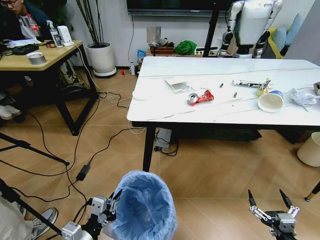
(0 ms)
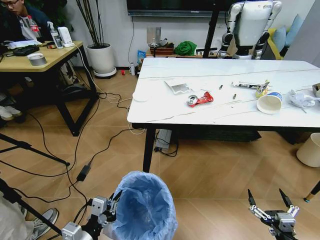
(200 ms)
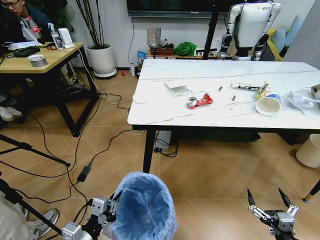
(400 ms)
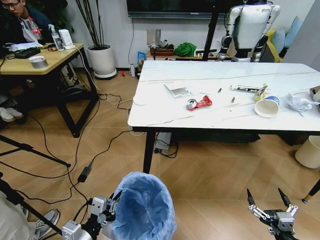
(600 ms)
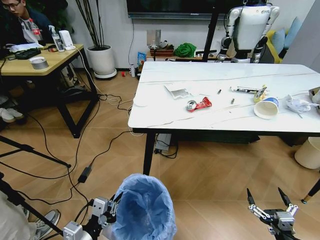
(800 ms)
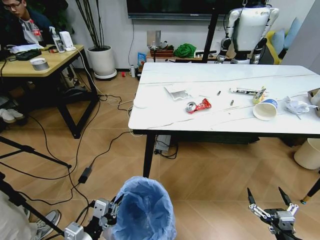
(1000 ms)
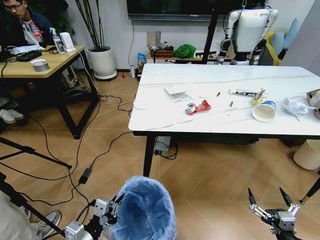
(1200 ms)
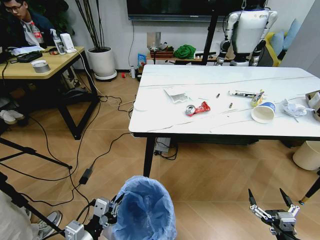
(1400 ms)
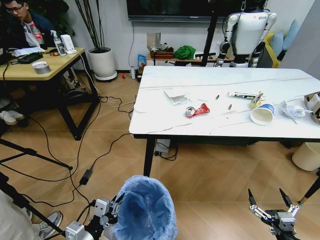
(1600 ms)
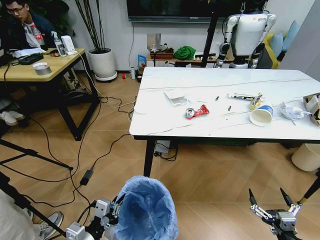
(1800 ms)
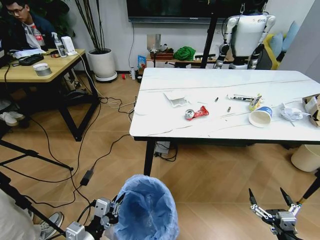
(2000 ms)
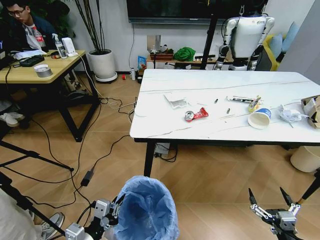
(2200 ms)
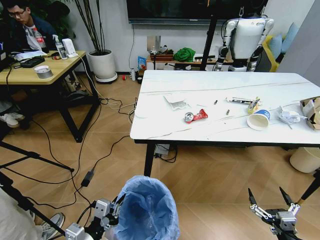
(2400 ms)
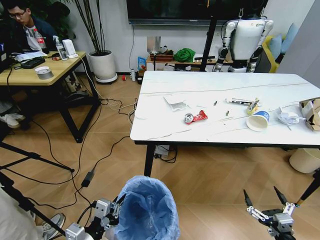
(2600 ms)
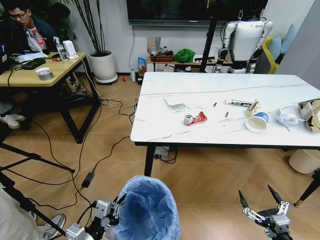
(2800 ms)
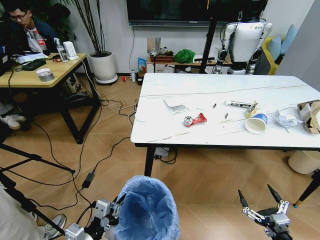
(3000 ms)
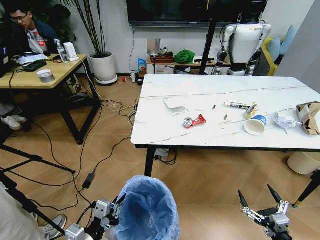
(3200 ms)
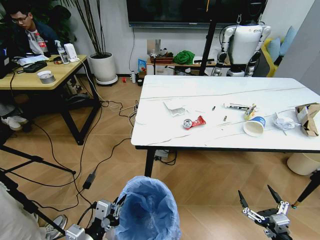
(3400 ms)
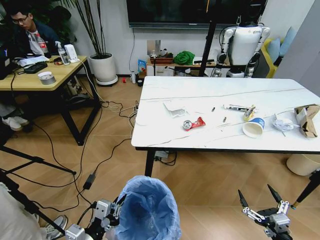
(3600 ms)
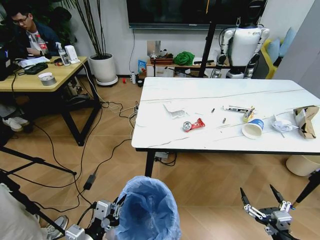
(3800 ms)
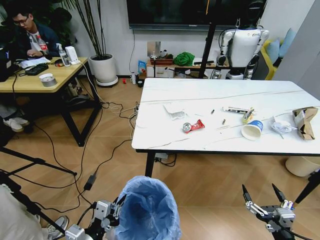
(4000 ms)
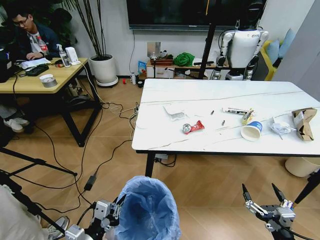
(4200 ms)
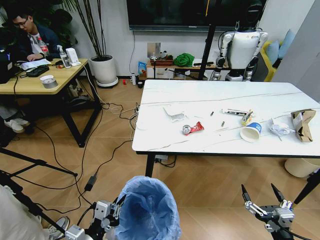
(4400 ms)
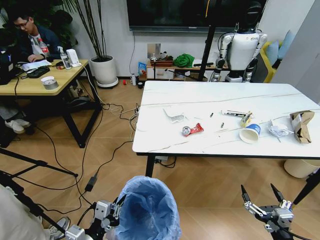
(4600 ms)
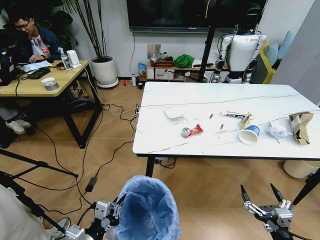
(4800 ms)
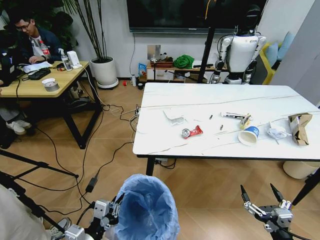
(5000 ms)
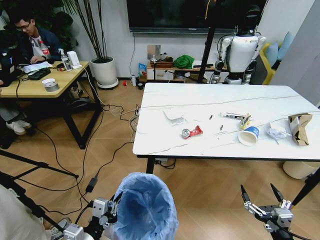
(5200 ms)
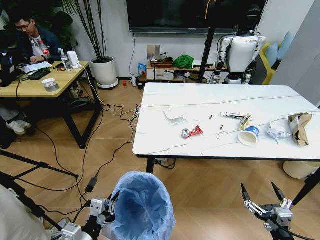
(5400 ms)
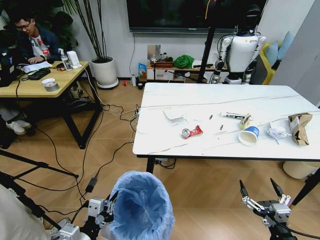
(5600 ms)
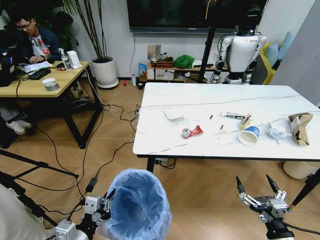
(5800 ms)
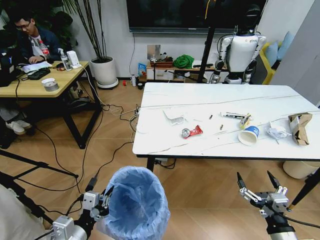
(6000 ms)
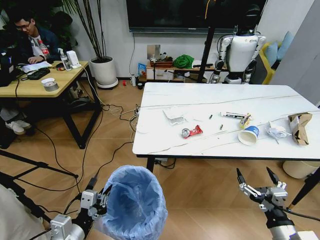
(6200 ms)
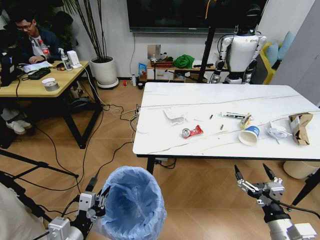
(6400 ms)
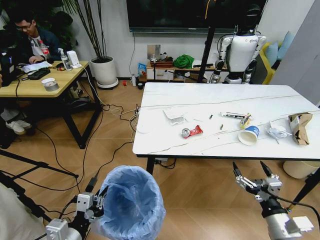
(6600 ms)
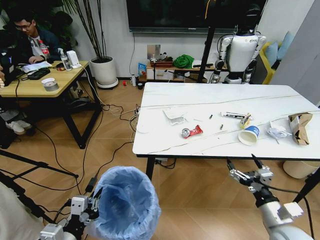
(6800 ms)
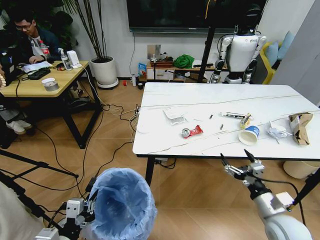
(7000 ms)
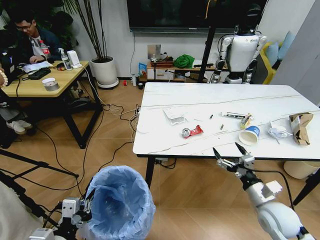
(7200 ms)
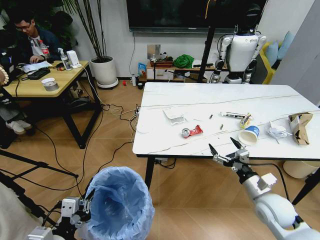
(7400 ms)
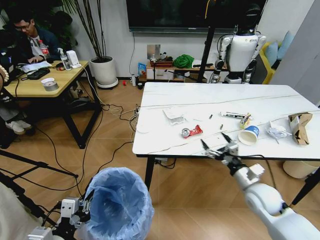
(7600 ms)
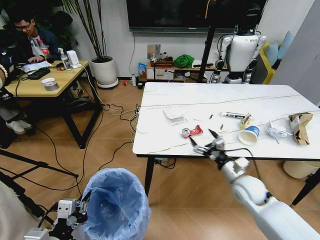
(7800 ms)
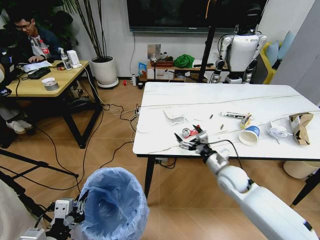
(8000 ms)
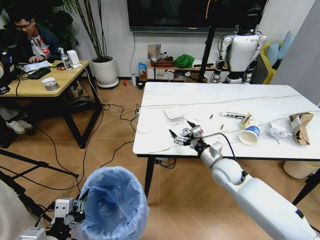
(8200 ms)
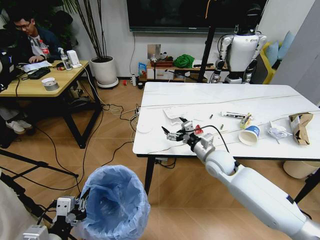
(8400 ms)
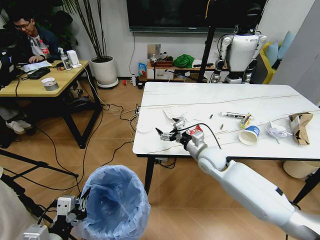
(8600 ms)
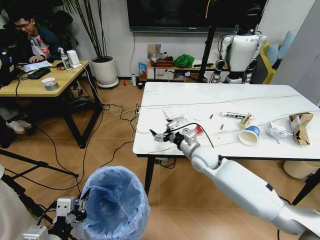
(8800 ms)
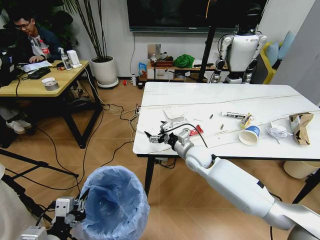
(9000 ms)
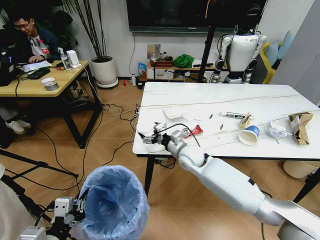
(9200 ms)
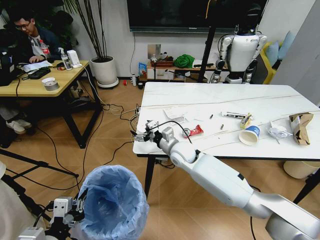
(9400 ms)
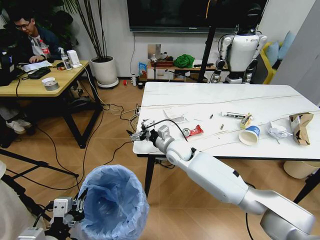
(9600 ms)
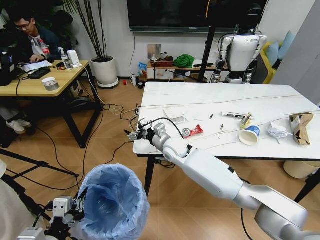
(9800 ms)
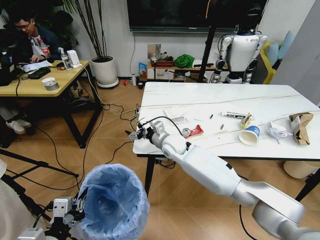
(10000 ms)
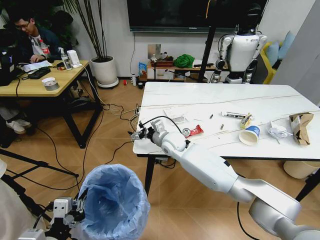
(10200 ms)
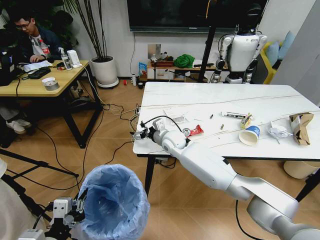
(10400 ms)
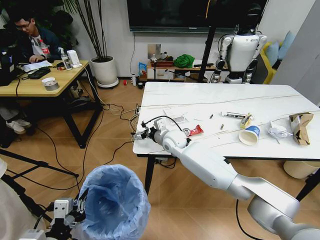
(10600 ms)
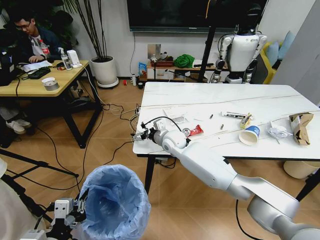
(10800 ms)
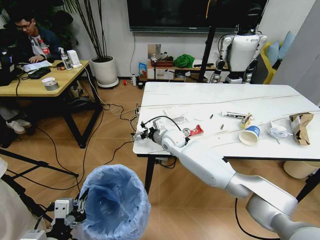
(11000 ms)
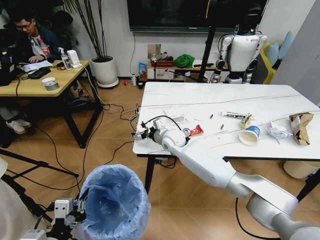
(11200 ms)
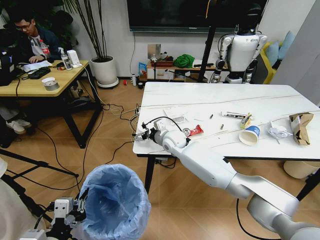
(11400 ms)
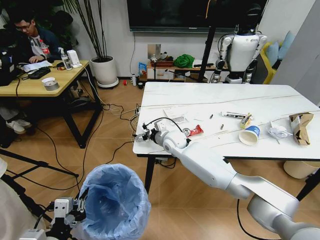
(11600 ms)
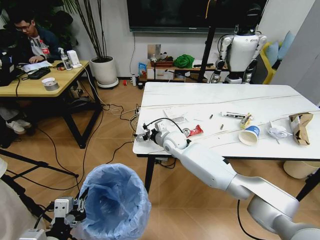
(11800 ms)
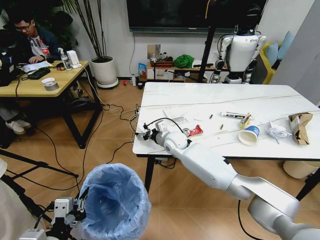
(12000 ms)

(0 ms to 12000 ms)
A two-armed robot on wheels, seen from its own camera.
Task of the whole recording: Pick up the trash bin and place the trash from the table into it.
6000 ms - 7600 ms: The right gripper is displaced forward by about 20 cm.
7600 ms - 9000 ms: The right gripper moves to the left and forward, about 25 cm.
9000 ms - 10400 ms: The right gripper travels to the left and forward by some 10 cm.
10400 ms - 12000 ms: The grippers stay close to where they were, moving slightly.

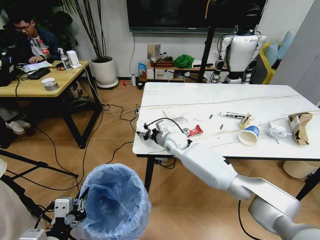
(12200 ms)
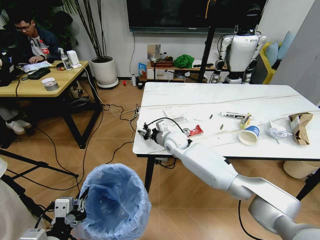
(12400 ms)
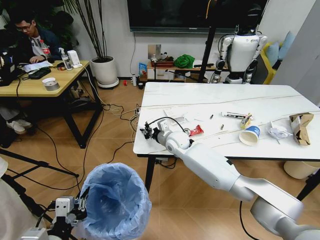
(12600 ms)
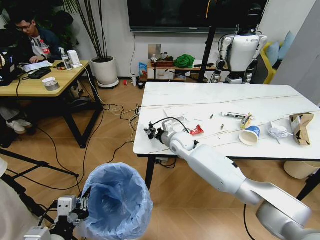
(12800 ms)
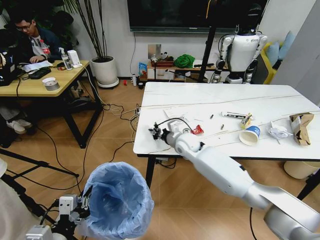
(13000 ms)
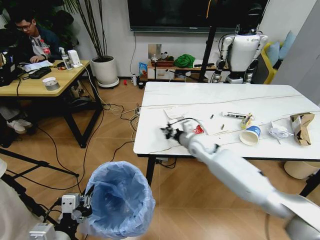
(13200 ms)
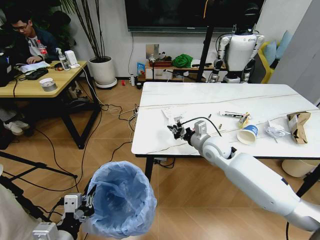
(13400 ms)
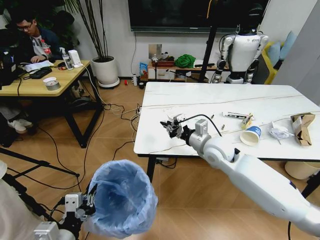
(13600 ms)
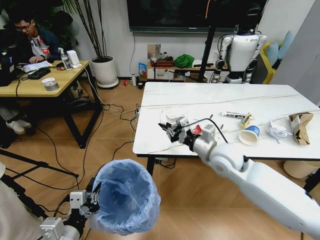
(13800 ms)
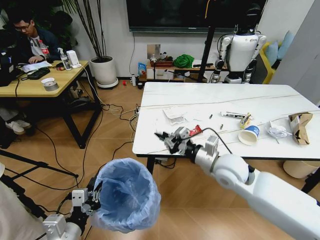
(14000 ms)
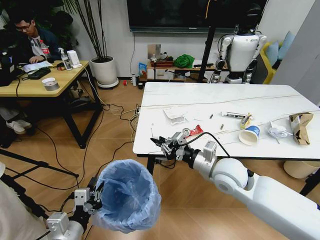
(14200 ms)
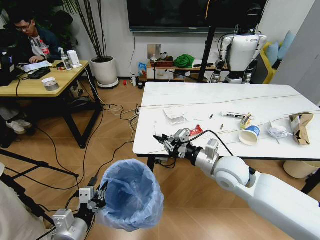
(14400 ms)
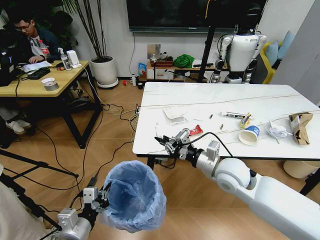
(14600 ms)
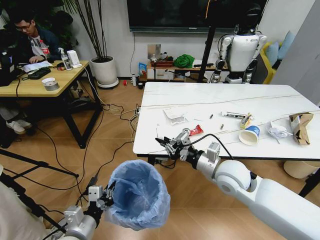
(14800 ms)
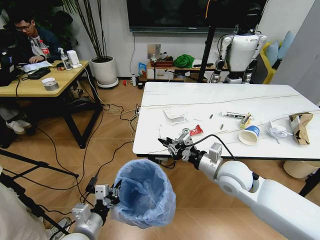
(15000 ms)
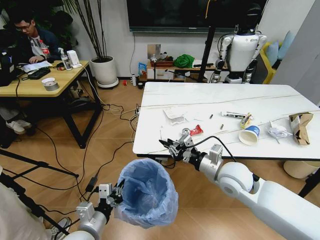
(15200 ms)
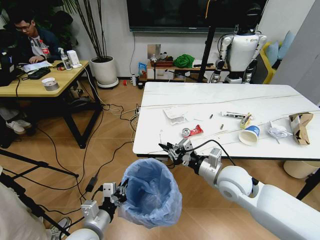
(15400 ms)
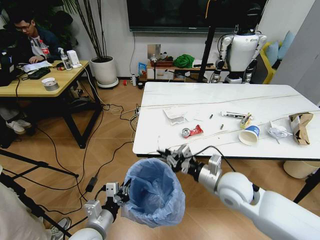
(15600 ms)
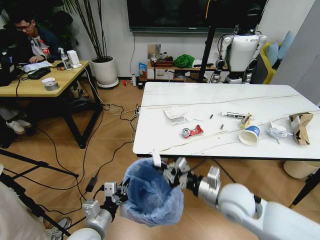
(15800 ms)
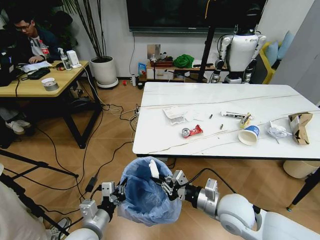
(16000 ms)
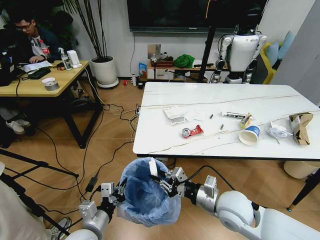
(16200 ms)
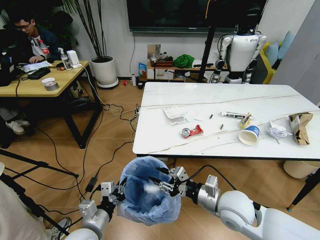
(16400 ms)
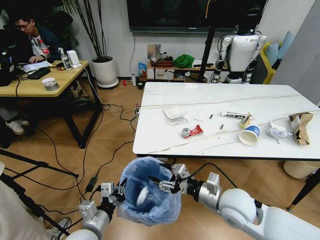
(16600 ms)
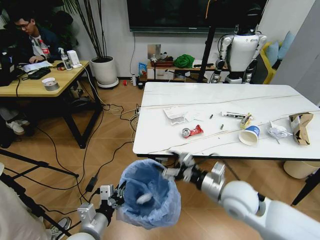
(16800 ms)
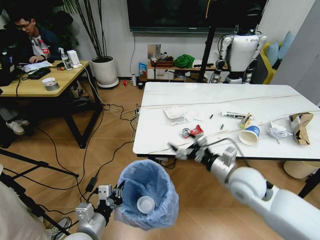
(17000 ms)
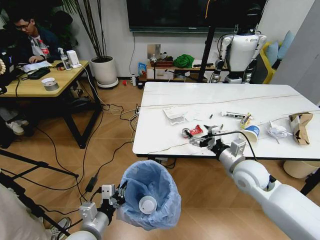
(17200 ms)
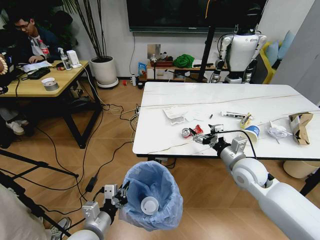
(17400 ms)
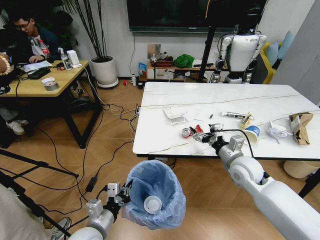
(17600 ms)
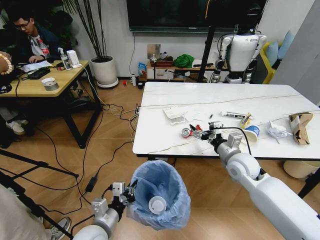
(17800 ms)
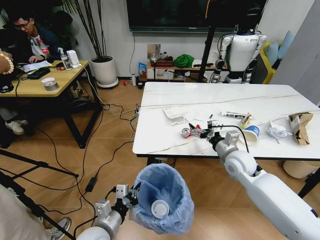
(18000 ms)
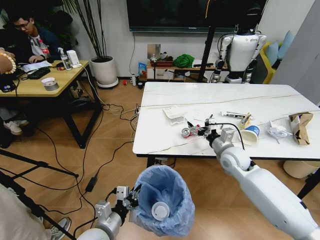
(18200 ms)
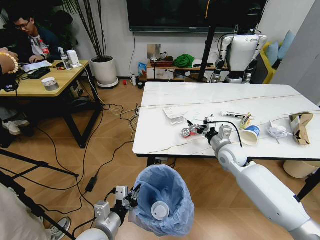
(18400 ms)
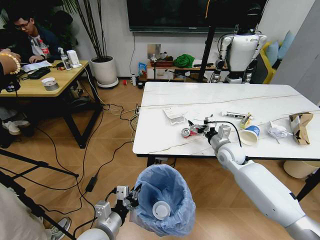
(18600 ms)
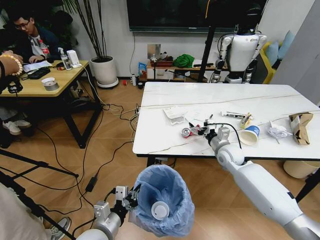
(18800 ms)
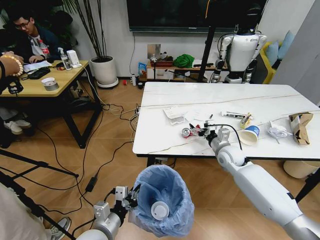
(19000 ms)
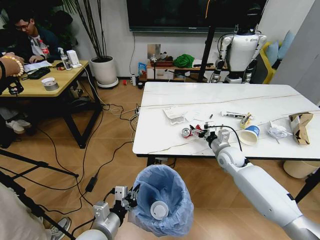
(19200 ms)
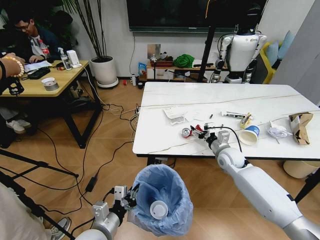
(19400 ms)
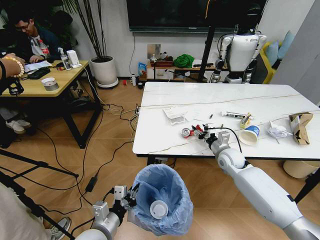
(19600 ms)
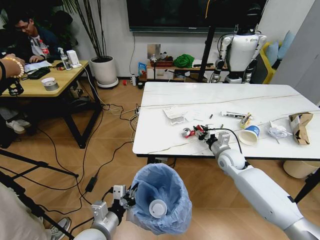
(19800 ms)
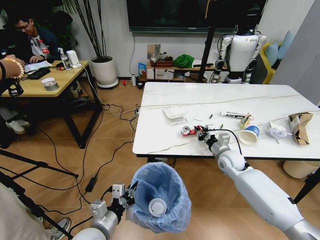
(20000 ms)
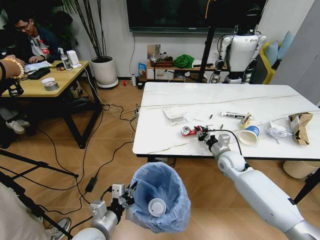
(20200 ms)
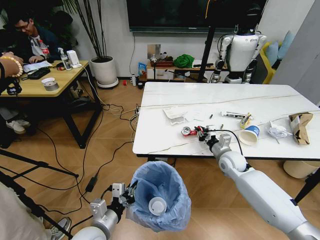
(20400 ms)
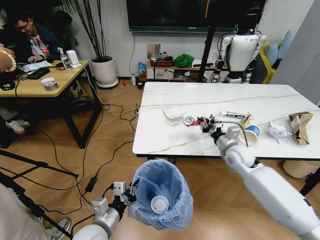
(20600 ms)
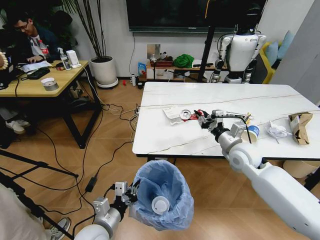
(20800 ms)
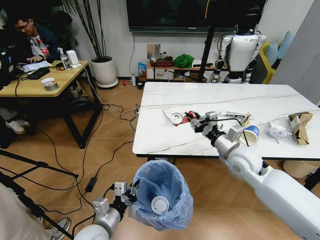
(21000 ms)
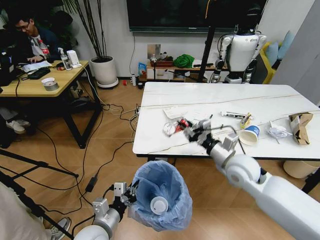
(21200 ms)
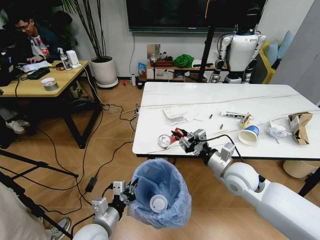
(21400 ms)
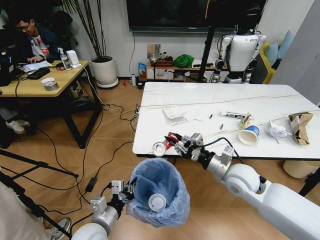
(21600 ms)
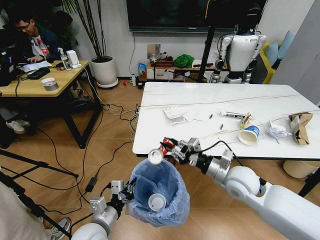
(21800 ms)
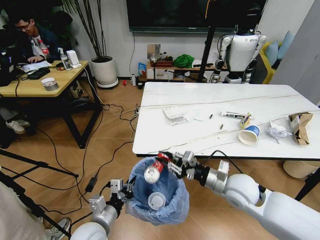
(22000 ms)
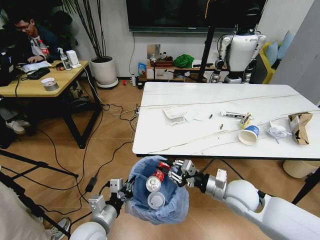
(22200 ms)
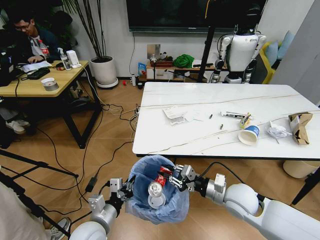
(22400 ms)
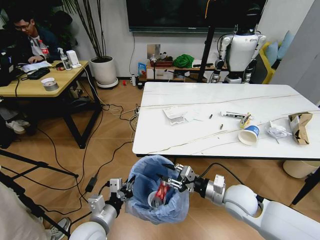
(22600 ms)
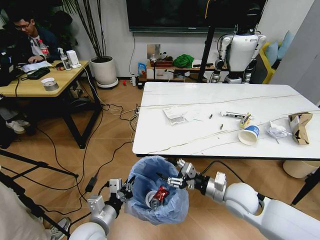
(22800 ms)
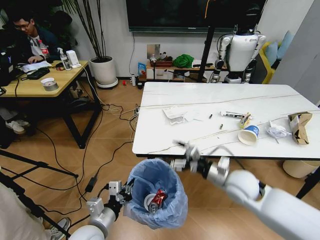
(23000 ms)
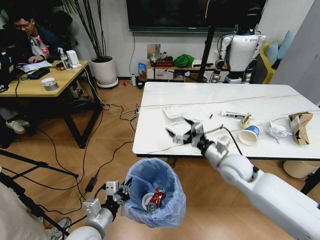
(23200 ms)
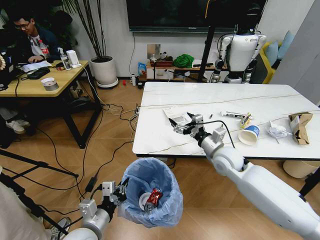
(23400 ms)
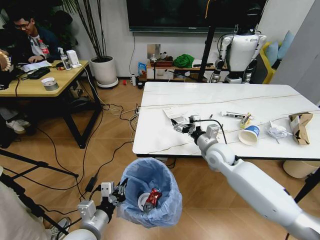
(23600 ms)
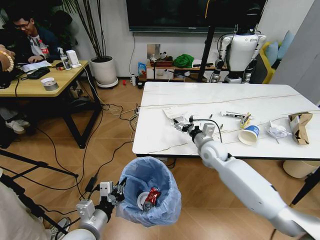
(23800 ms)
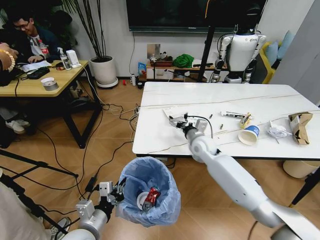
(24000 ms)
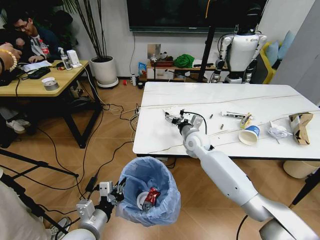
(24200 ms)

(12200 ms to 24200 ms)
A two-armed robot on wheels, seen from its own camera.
Task of the whole recording: Pick up the trash bin and place the trash from the table into it.
12200 ms - 13800 ms: The right gripper heads to the right, backward and upward, covering about 20 cm, and closes.
13800 ms - 15200 ms: The right gripper moves backward, roughly 5 cm. Meanwhile the left gripper travels downward and forward by some 10 cm.
15200 ms - 16600 ms: The right gripper travels backward by some 5 cm, and opens its fingers.
16600 ms - 18200 ms: The right gripper is displaced forward by approximately 15 cm, and opens up.
18200 ms - 19800 ms: The right gripper travels downward by roughly 5 cm, and closes its fingers.
19800 ms - 21200 ms: The right gripper shifts approximately 15 cm backward and upward.
21200 ms - 22600 ms: The right gripper goes some 10 cm downward and backward.
22600 ms - 24200 ms: The right gripper travels forward and to the left by about 25 cm, and opens its fingers.
